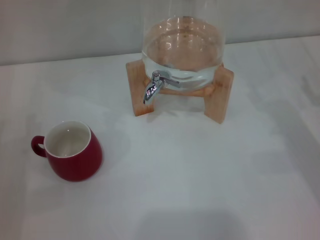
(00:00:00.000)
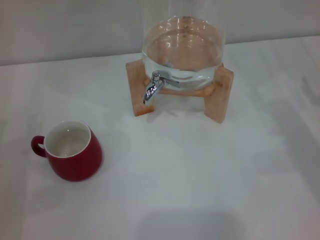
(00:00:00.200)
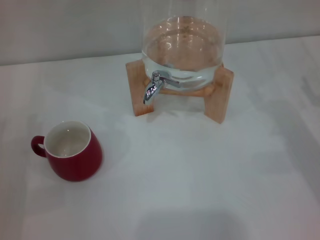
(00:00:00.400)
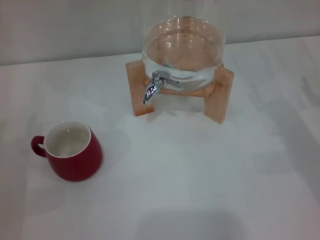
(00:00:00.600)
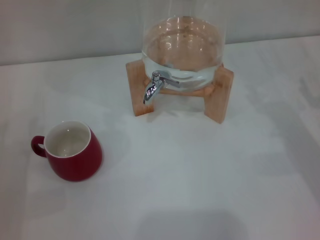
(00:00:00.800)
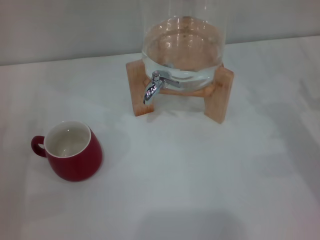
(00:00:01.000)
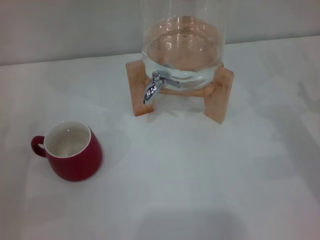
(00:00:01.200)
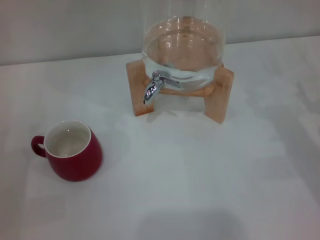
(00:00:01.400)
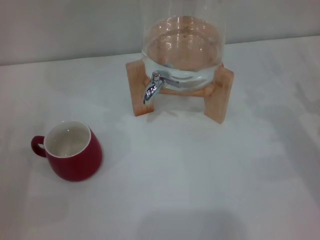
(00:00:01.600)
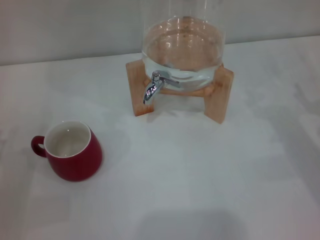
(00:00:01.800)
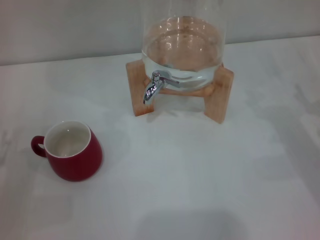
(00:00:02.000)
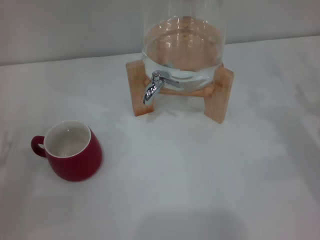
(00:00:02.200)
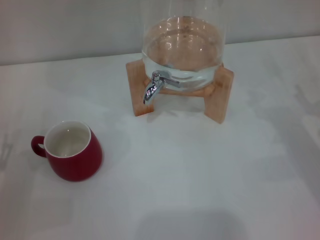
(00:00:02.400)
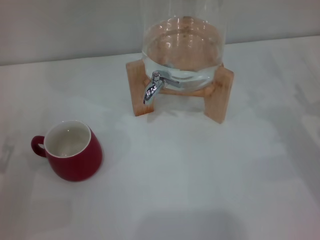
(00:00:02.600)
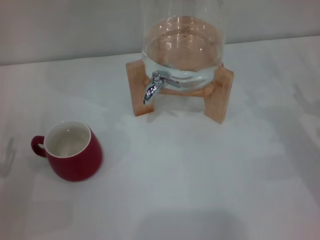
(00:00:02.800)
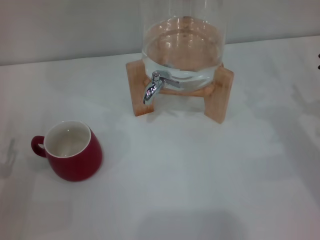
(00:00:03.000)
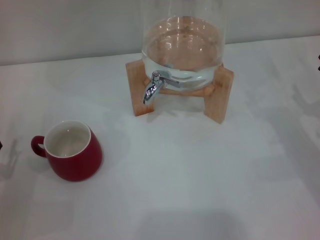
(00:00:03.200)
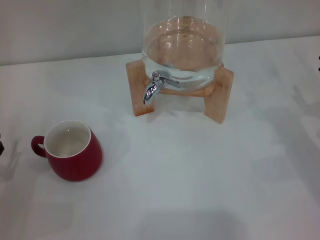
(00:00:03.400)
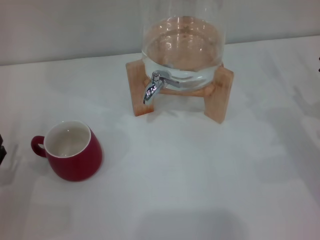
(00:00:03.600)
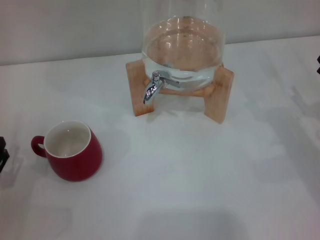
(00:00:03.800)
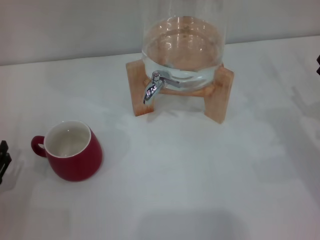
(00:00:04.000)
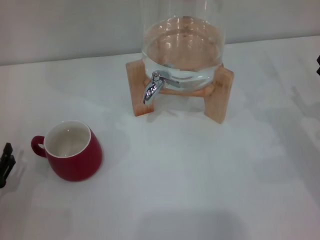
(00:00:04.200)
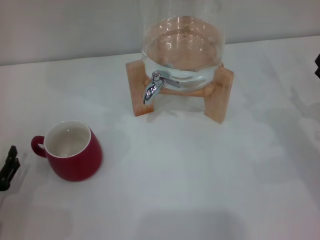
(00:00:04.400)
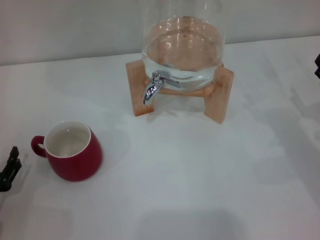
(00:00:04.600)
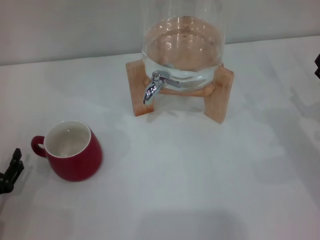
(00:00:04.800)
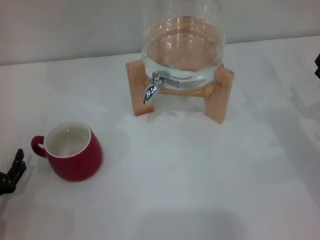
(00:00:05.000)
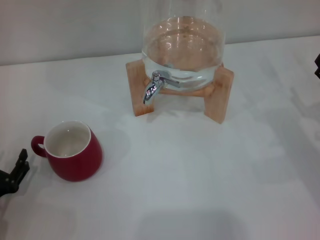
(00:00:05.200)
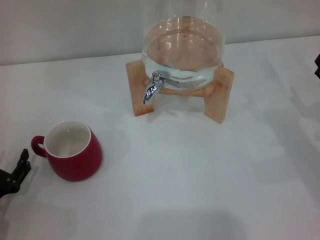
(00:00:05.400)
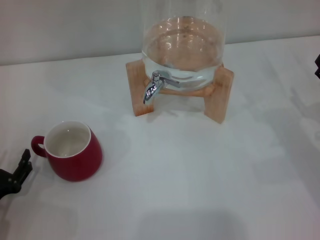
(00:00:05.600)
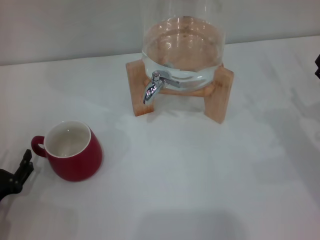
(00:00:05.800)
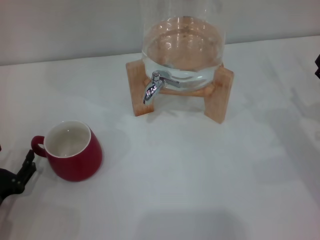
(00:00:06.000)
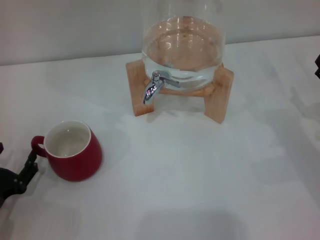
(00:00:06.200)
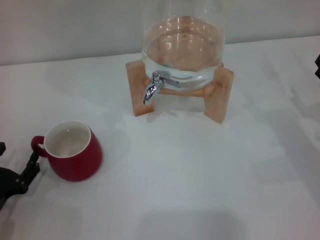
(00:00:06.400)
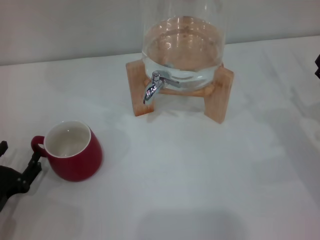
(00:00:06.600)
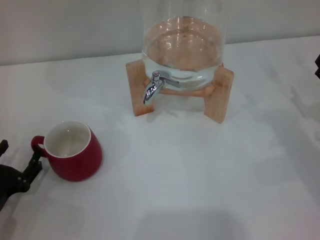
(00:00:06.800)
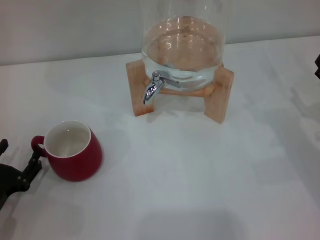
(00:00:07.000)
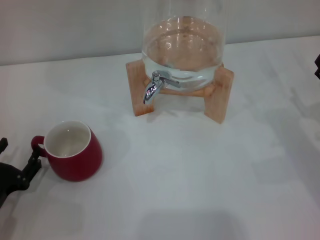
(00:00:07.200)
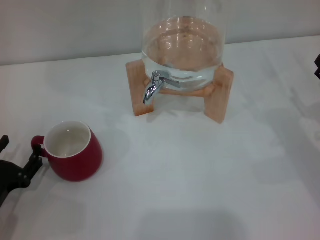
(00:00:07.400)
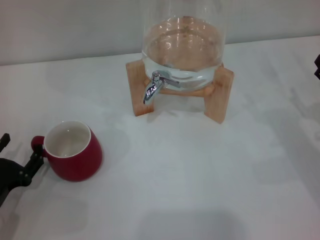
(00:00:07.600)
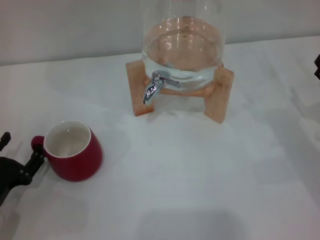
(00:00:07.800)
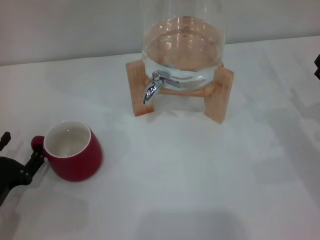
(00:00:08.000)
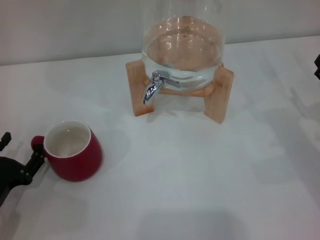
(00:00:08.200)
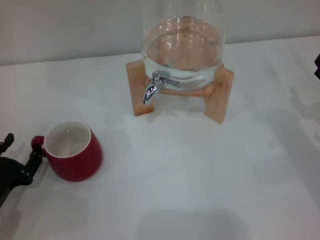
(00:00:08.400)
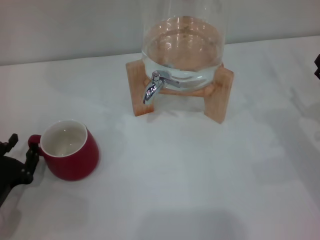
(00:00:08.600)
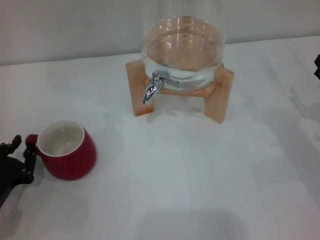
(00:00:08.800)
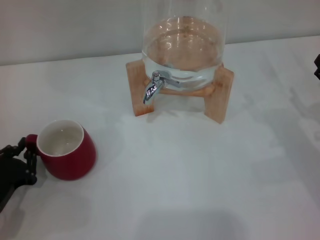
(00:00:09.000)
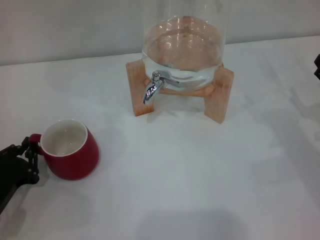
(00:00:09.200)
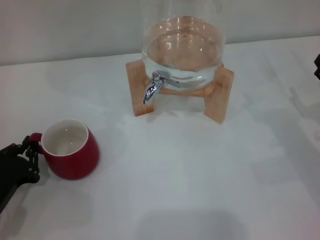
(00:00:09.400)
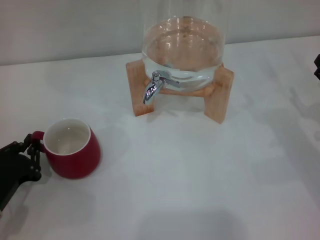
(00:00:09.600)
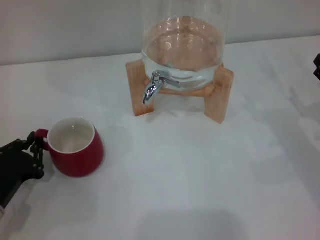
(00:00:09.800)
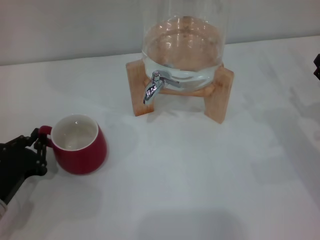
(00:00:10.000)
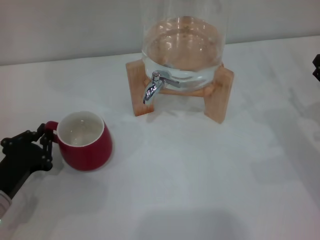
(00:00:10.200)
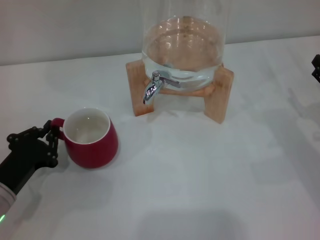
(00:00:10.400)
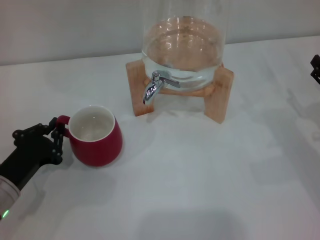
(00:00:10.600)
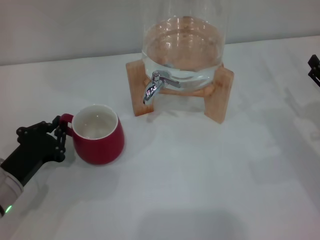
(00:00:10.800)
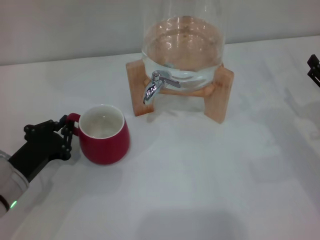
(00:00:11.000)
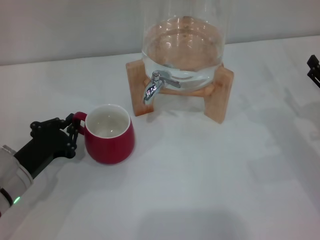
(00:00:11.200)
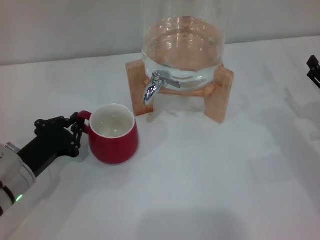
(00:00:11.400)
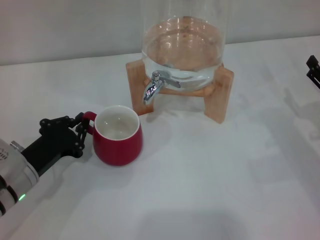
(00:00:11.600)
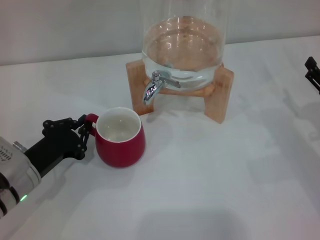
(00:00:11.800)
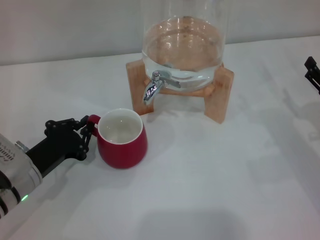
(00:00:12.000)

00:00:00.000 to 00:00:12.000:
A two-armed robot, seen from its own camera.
Task of the whole recording: the left gripper pick up the red cup and place it horizontally under the faucet, the right gripper turn on the faucet to fill the cup, and then turn off the faucet.
00:00:04.400 to 00:00:06.000: The grippers stay close to where they were, moving slightly.
00:00:06.000 to 00:00:07.600: Both grippers stay put.
00:00:07.600 to 00:00:09.000: The left gripper closes.
00:00:09.000 to 00:00:10.400: The left gripper closes up.
00:00:10.400 to 00:00:12.000: The grippers stay close to where they were, moving slightly.

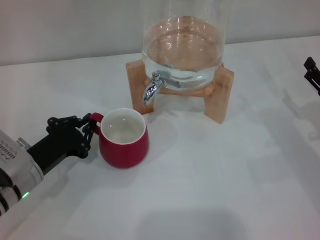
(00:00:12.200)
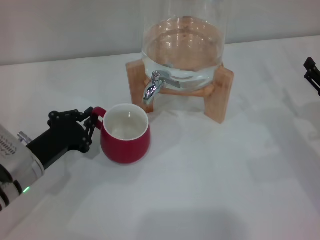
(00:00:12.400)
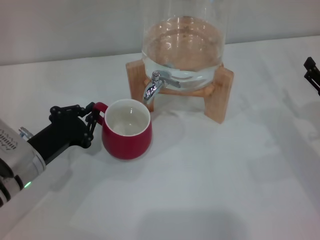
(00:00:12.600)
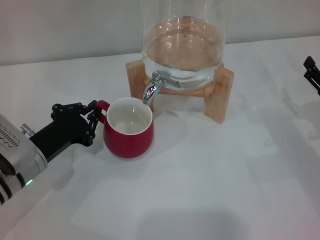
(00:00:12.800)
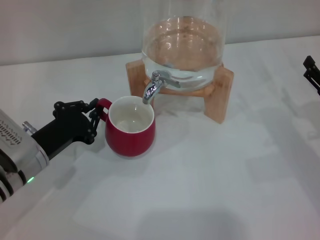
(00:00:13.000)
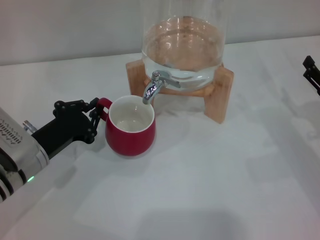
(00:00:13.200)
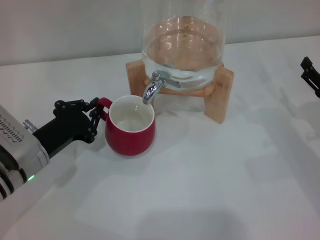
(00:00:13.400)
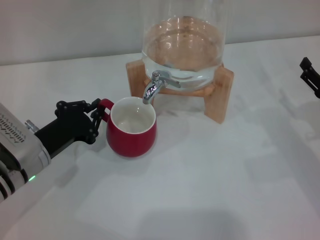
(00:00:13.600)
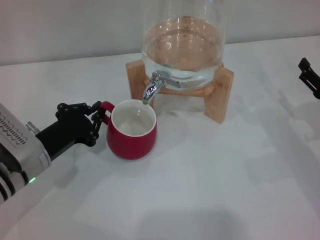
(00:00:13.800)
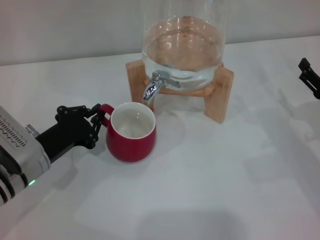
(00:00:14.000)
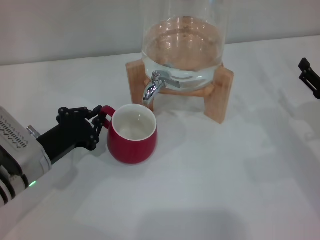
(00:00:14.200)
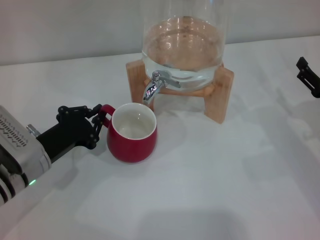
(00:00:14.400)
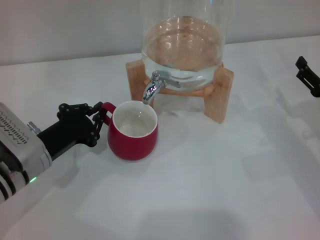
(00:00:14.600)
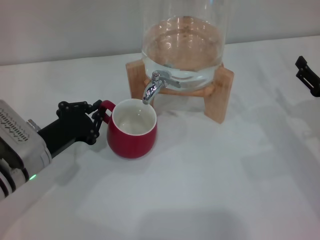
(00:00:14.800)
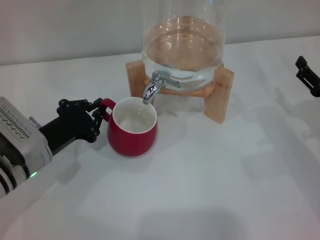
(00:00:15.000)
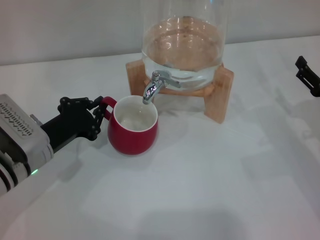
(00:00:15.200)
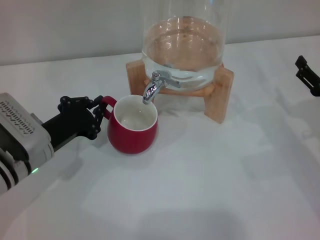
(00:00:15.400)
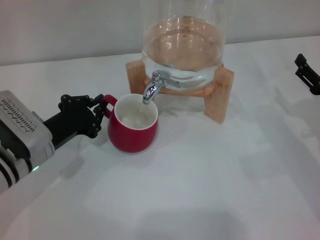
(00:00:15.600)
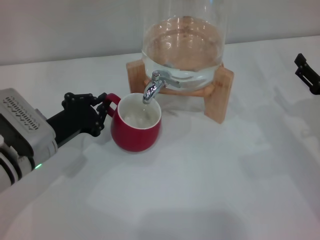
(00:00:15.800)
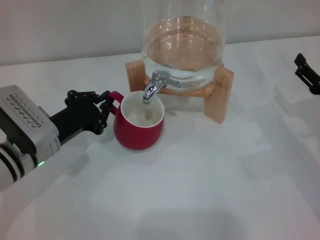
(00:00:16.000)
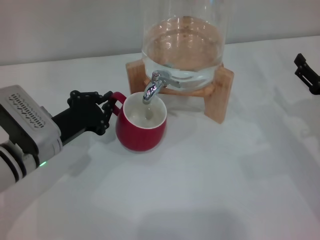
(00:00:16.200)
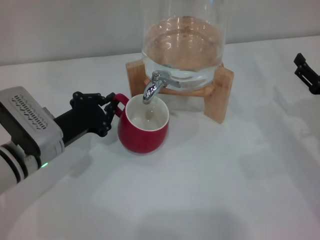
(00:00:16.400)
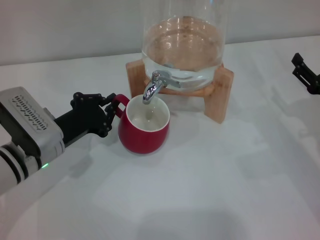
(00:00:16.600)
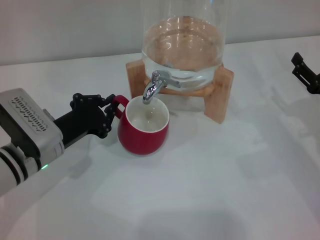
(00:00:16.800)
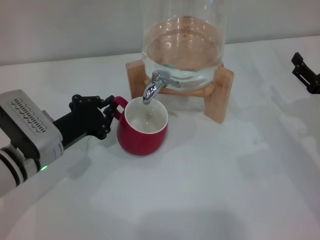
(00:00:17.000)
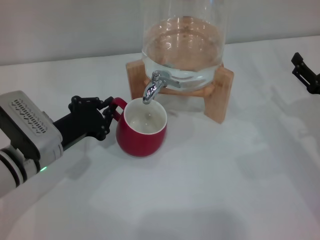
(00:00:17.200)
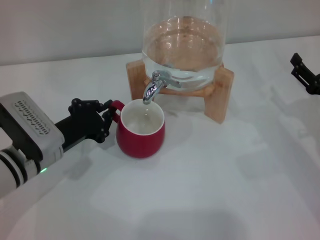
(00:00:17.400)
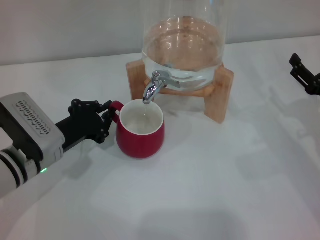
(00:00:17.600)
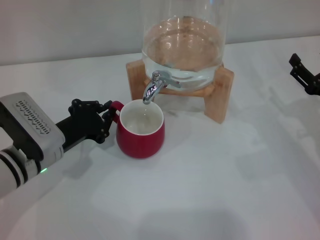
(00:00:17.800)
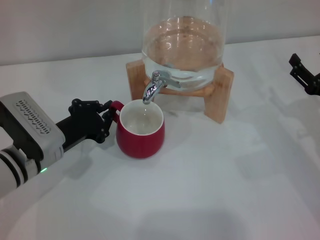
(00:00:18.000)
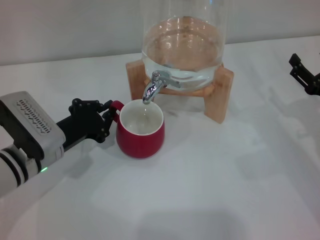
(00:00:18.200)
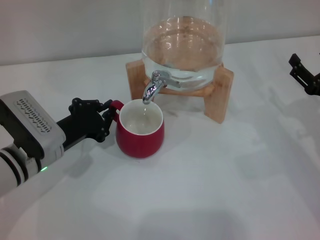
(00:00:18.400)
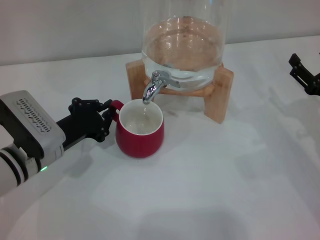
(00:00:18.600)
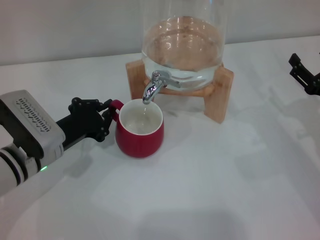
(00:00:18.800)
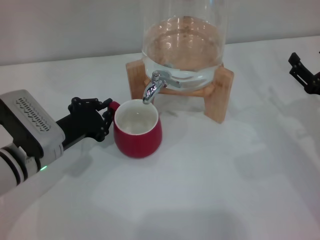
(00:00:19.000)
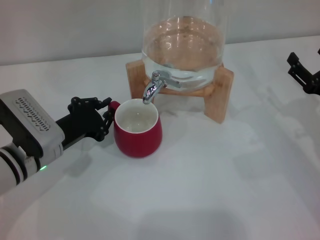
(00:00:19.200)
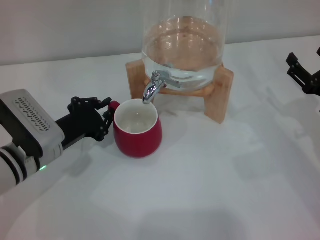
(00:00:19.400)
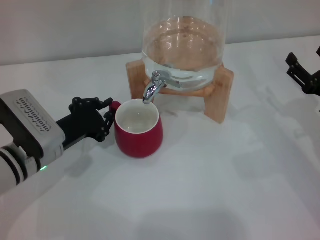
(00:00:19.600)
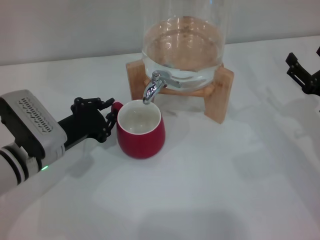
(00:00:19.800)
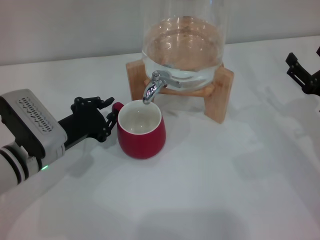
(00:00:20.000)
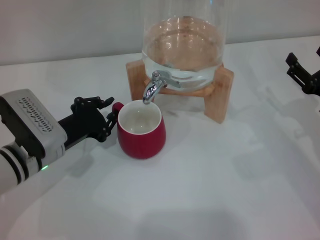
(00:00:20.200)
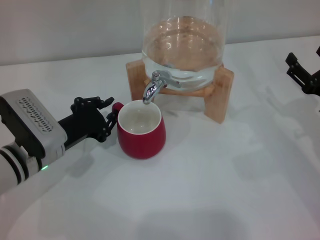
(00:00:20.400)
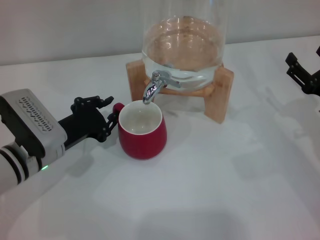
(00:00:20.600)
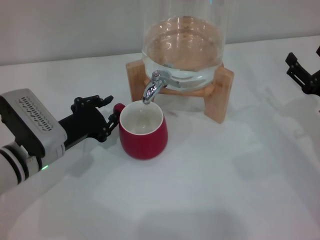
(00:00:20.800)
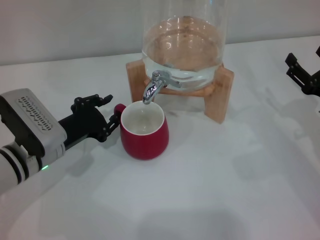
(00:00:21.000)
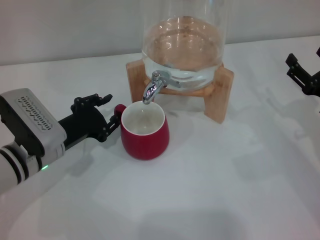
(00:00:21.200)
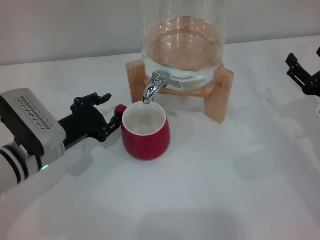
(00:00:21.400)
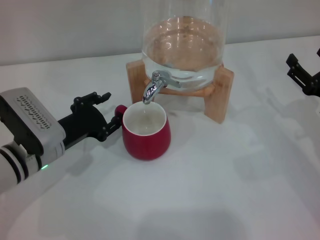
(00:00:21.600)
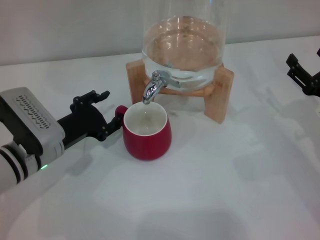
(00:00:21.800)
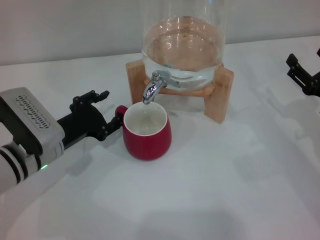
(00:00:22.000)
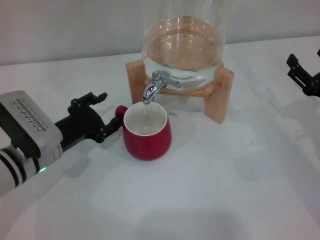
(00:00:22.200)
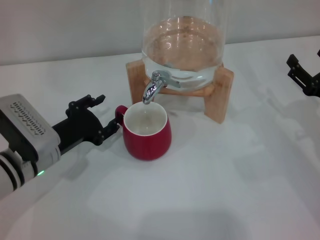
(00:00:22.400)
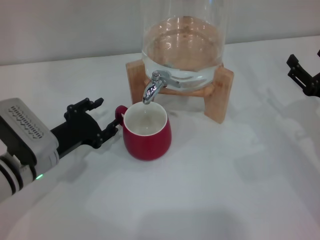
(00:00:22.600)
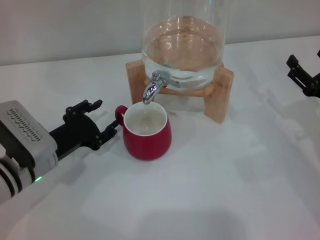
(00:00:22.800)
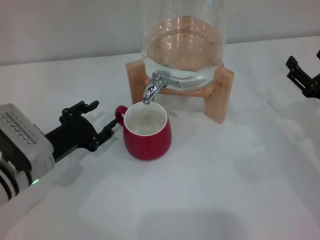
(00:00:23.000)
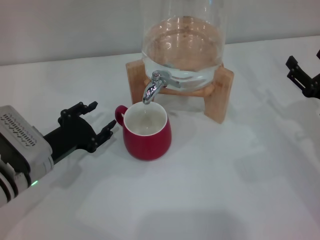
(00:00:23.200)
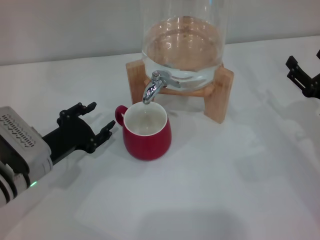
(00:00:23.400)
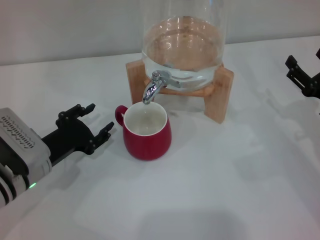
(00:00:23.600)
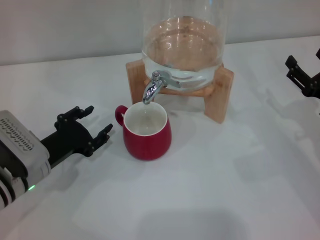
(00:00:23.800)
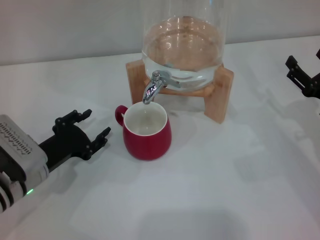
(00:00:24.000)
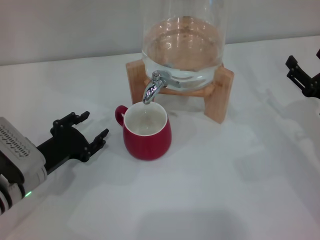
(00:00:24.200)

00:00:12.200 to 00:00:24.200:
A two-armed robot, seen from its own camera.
Task of the whole recording: the left gripper pick up the red cup and place it horizontally under the faucet, the right gripper turn on the faucet to fill the cup, and then turn off the faucet.
Step, 00:00:12.200 to 00:00:23.000: Move the cup beneath the water dispenser nozzle with the left gripper.
00:00:12.200 to 00:00:13.800: The grippers stay close to where they were, moving slightly.
00:00:13.800 to 00:00:15.200: Both grippers stay put.
00:00:15.200 to 00:00:16.600: The grippers move only a little.
00:00:16.600 to 00:00:21.200: Both grippers stay about where they are.
00:00:21.200 to 00:00:24.200: The grippers move only a little.
